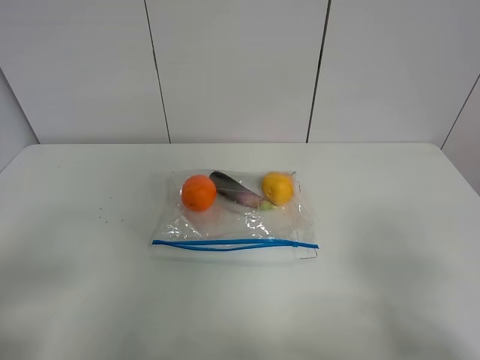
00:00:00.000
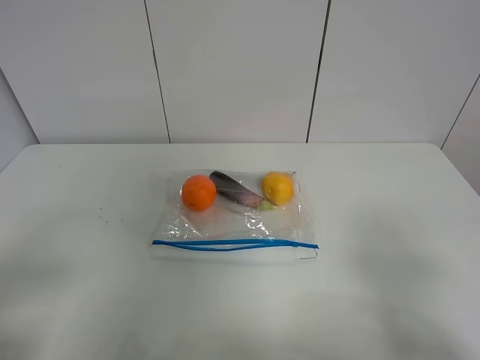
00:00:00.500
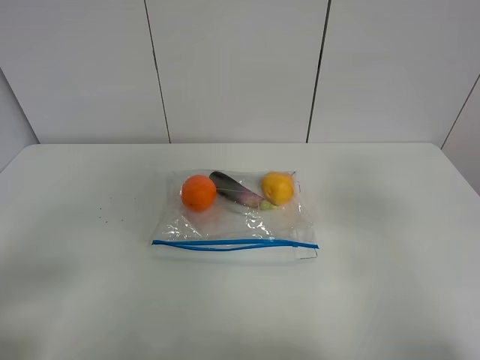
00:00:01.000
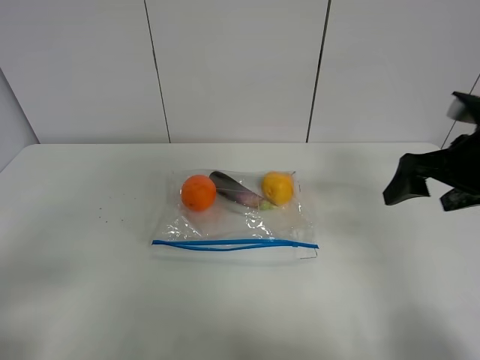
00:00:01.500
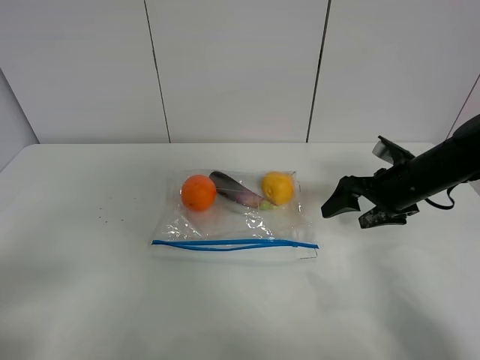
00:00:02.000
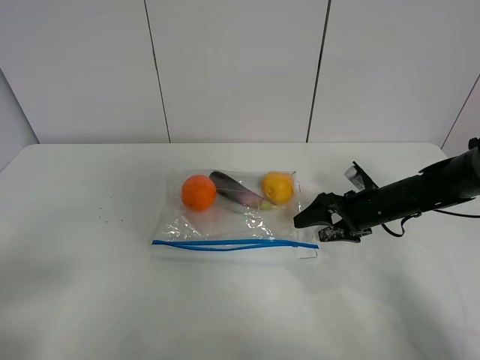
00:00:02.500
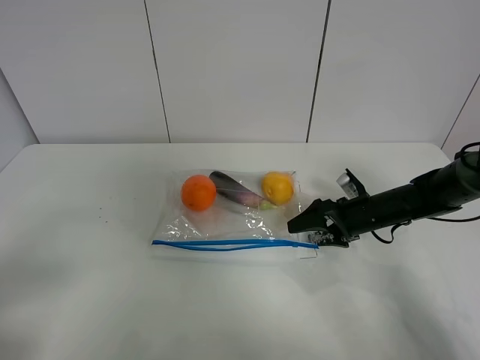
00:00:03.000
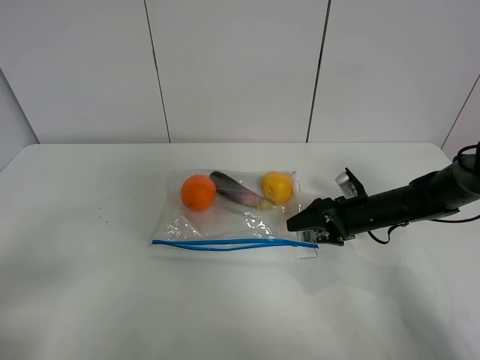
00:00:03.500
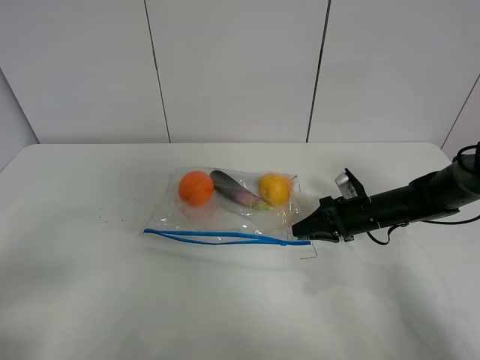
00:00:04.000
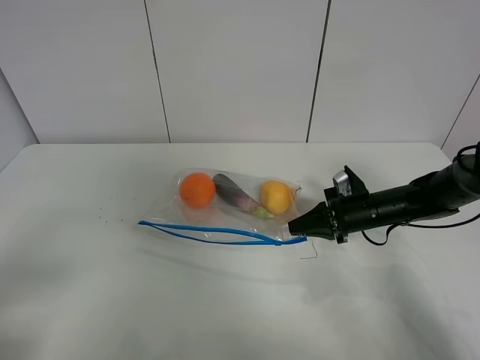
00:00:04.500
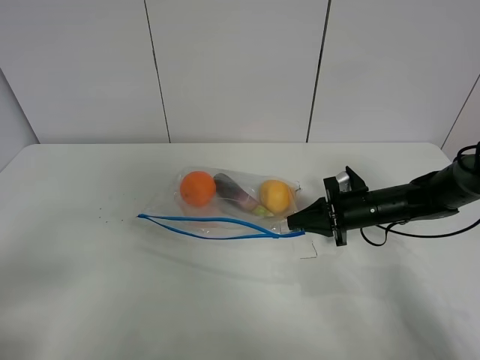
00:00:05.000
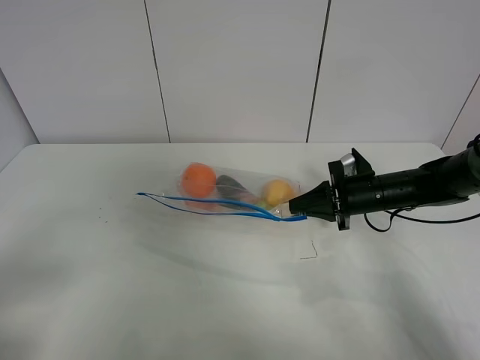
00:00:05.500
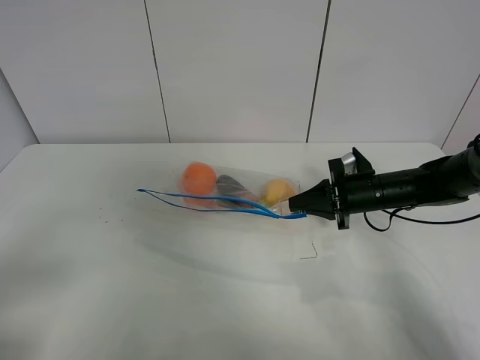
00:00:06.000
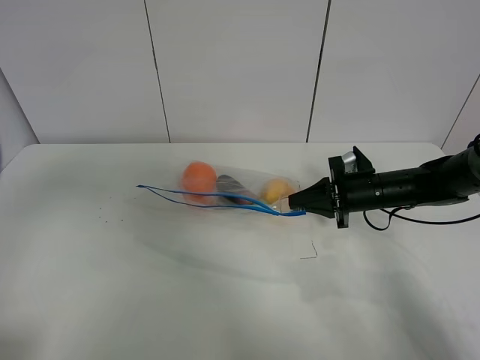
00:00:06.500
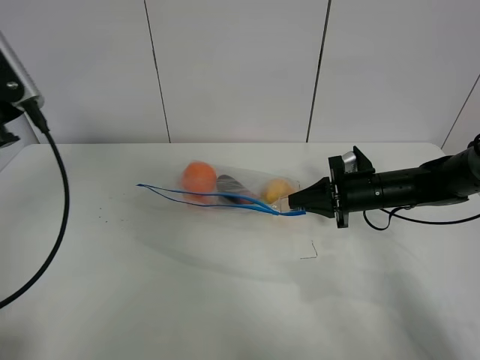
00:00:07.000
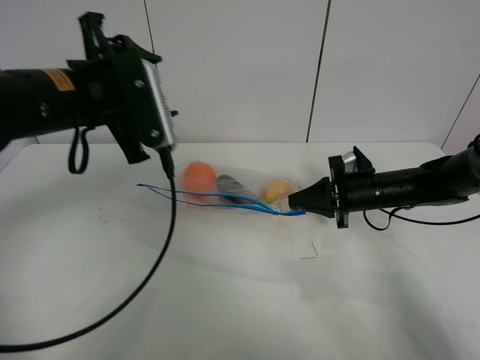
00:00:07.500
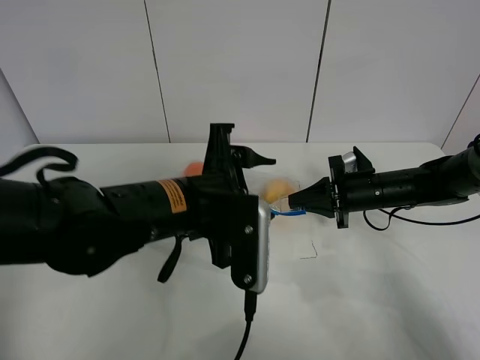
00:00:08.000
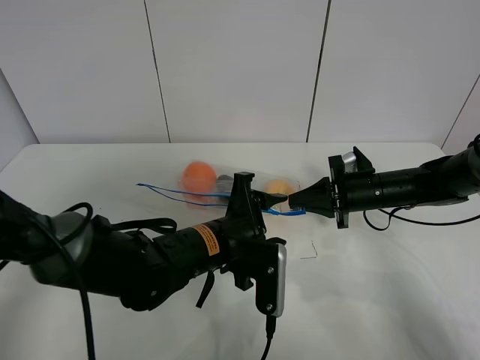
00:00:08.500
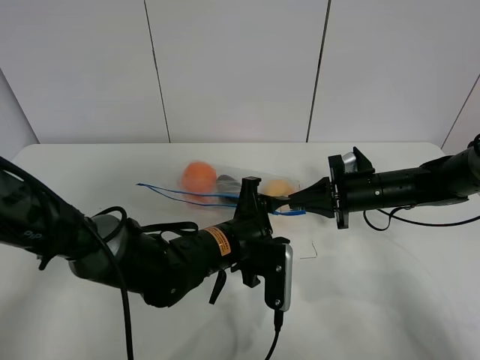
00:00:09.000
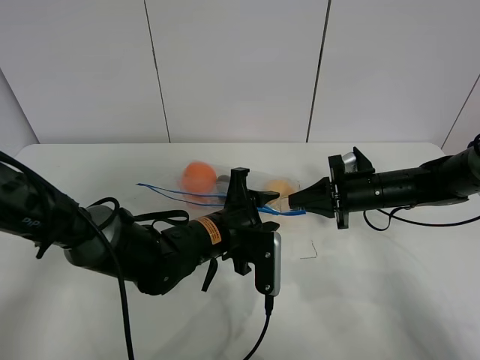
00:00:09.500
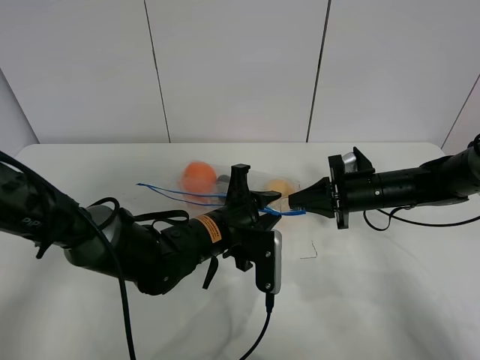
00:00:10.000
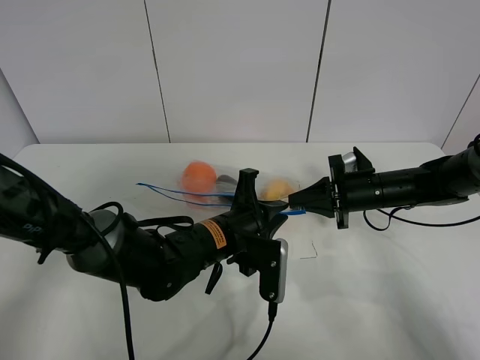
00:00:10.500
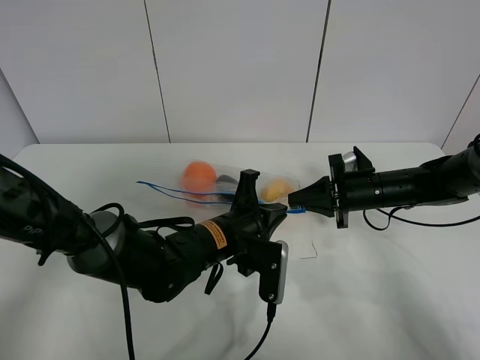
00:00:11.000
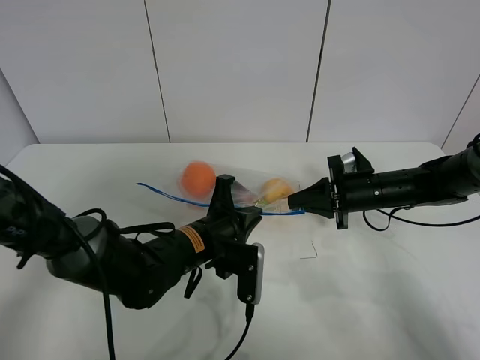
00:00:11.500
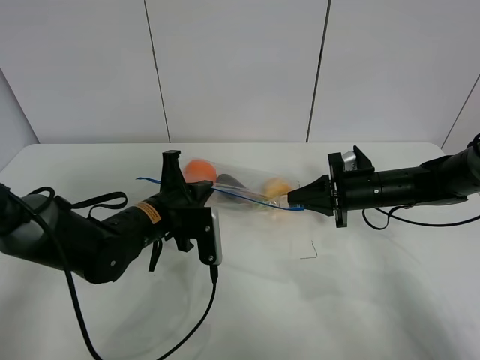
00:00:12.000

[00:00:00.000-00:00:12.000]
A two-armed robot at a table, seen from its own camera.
Step, 00:00:00.000 to 00:00:04.000: Grasp the fruit bag with right gripper.
Step, 00:00:04.500 to 00:00:06.000: Lift the fruit bag with your right gripper.
00:00:00.000 to 00:00:02.000: The right gripper travels forward by some 35 cm.
00:00:02.000 to 00:00:04.000: The right gripper moves downward, approximately 10 cm, and closes up.
00:00:04.000 to 00:00:06.000: The grippers make only small movements.
00:00:06.000 to 00:00:08.000: The left gripper is displaced to the right and forward by approximately 35 cm.
00:00:08.000 to 00:00:10.000: The left gripper goes some 10 cm downward, and closes.
00:00:10.000 to 00:00:12.000: The left gripper travels to the left by roughly 10 cm, and closes.

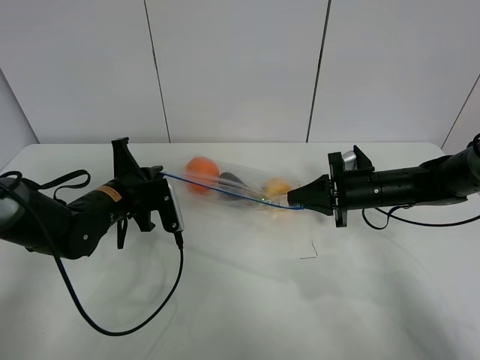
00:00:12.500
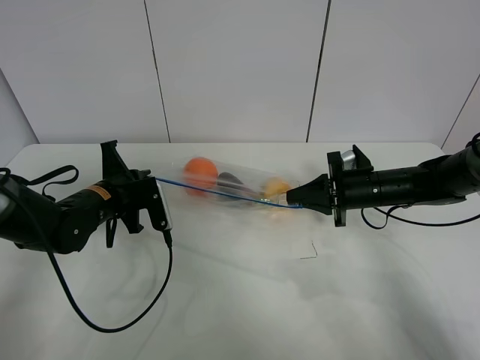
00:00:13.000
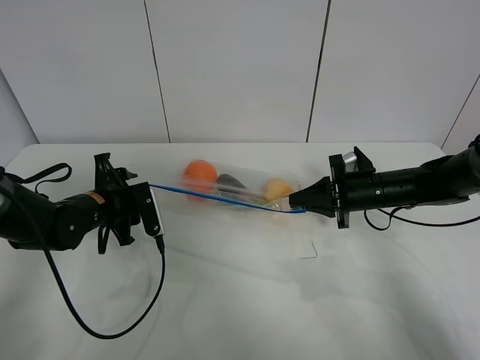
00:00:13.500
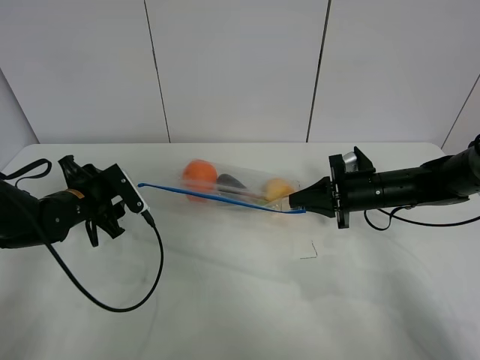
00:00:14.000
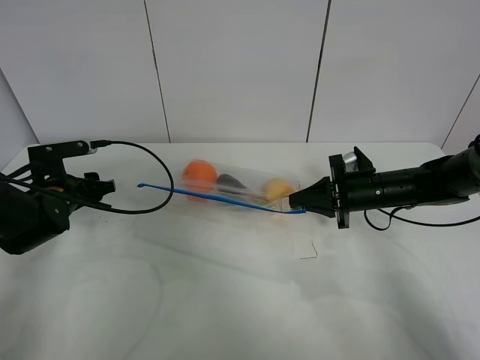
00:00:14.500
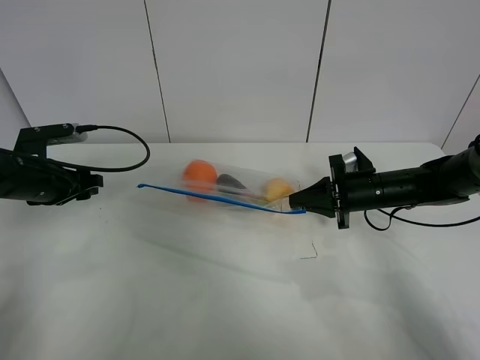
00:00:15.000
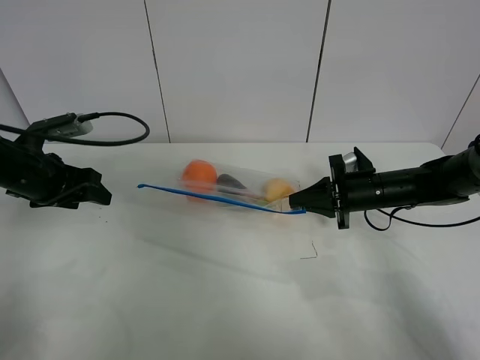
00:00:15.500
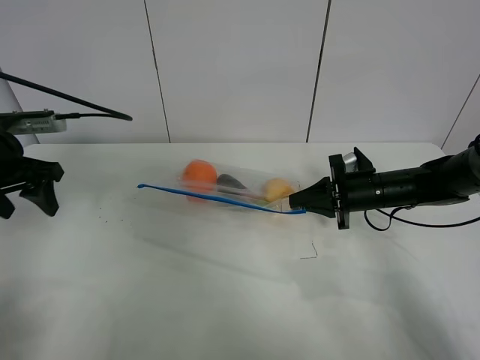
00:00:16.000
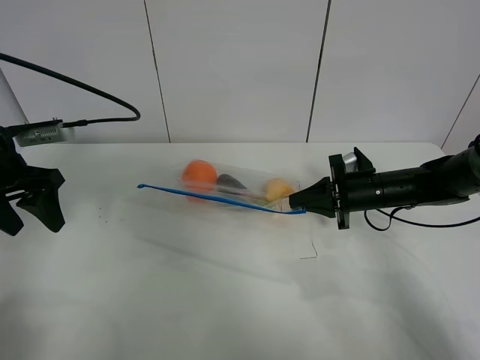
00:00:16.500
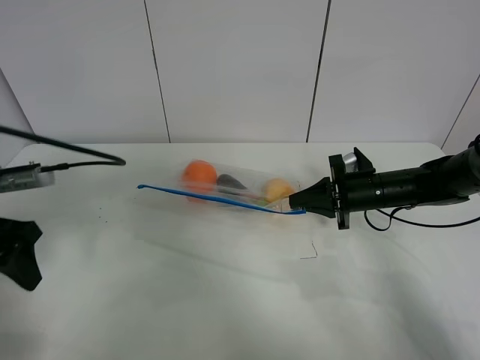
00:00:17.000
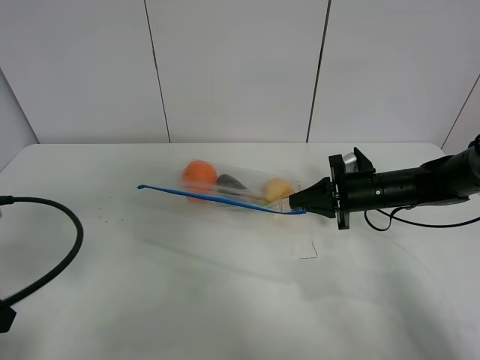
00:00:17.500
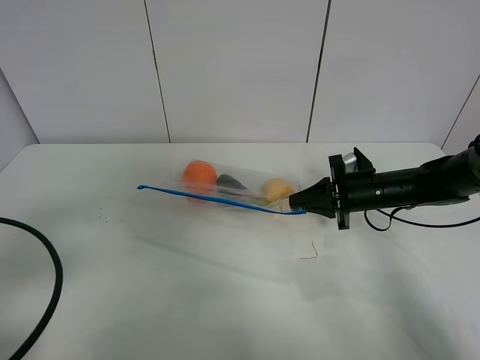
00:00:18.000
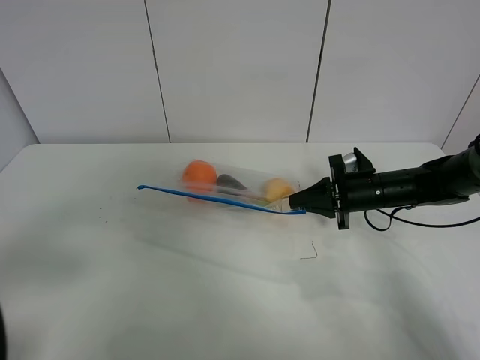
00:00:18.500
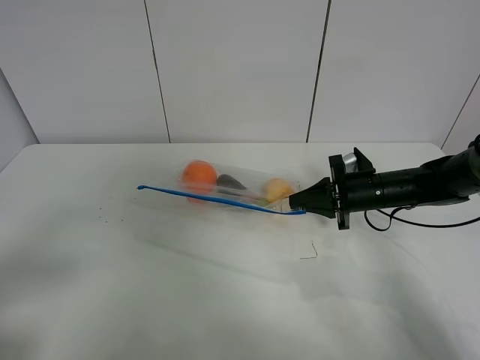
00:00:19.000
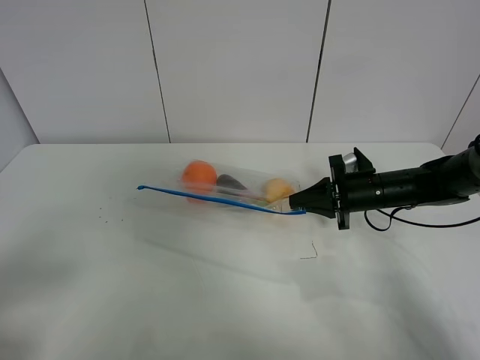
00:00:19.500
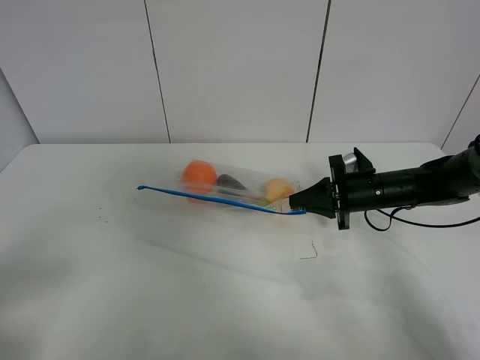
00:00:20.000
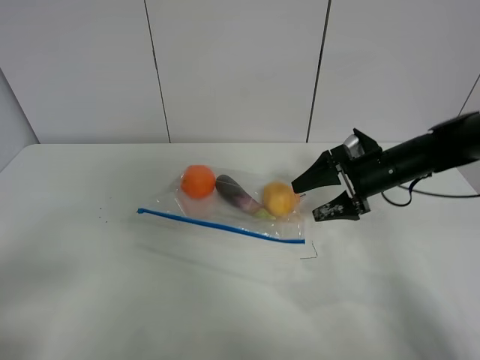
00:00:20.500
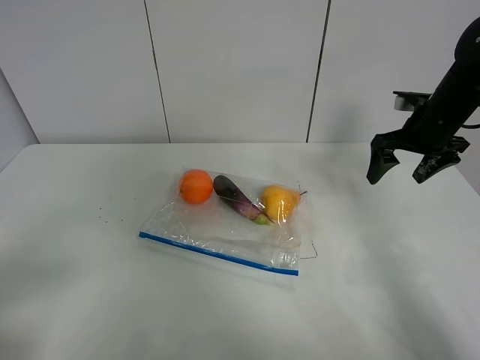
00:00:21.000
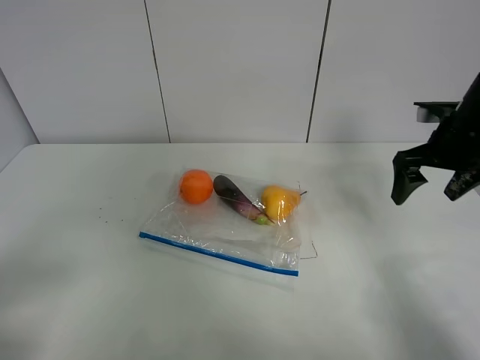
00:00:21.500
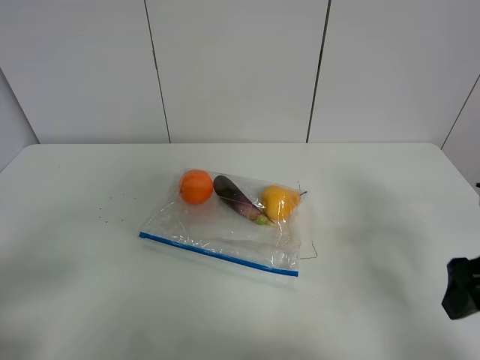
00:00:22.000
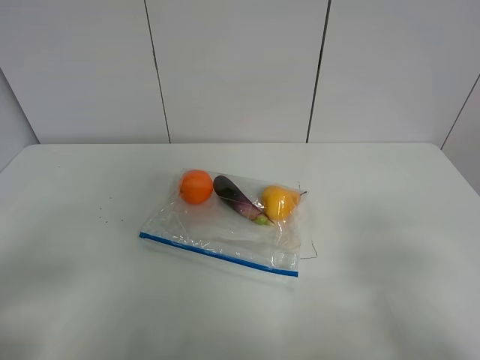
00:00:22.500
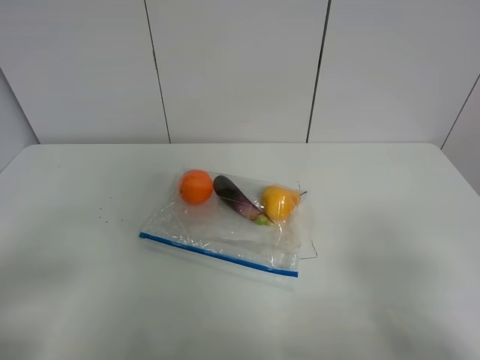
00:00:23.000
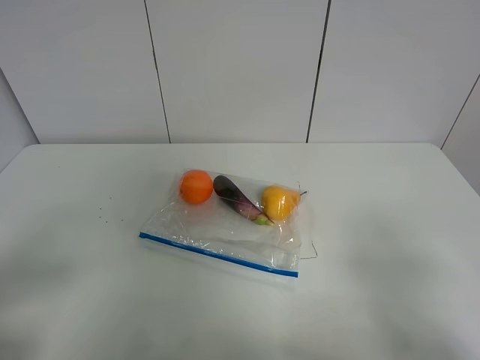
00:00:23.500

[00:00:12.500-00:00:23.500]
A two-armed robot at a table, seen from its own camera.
00:00:12.500 to 00:00:14.500: The left gripper travels to the left by about 10 cm, and opens.
00:00:14.500 to 00:00:16.000: The left gripper travels upward by some 10 cm.
00:00:16.000 to 00:00:18.000: The left gripper shifts approximately 20 cm backward.
00:00:18.000 to 00:00:20.000: The left gripper goes approximately 10 cm backward.
00:00:20.000 to 00:00:21.500: The right gripper moves upward and to the right, about 15 cm, and opens up.
00:00:21.500 to 00:00:23.500: The right gripper goes roughly 35 cm backward.

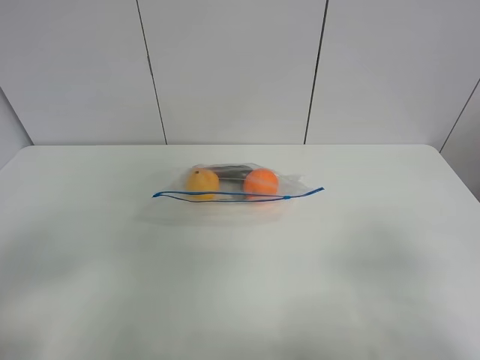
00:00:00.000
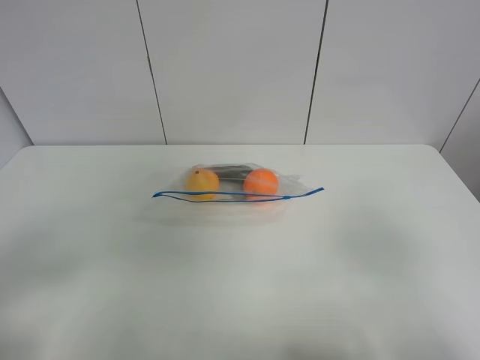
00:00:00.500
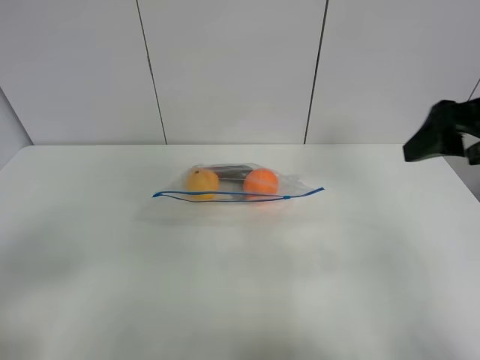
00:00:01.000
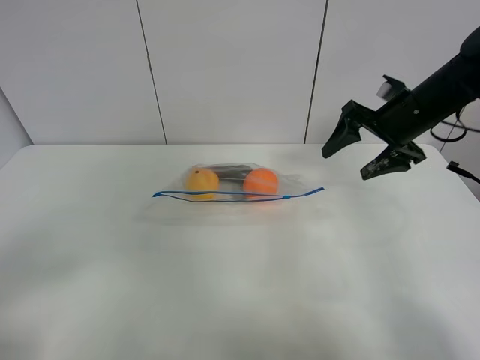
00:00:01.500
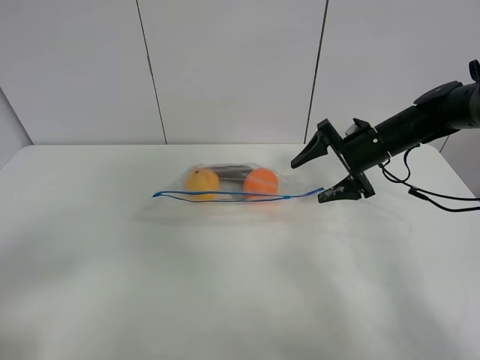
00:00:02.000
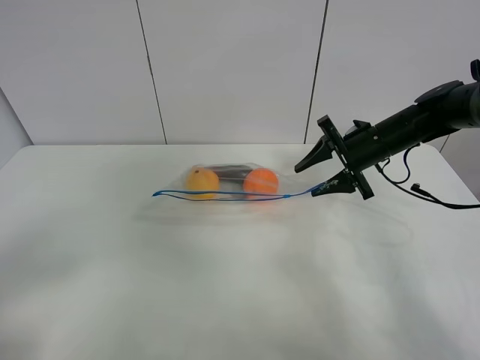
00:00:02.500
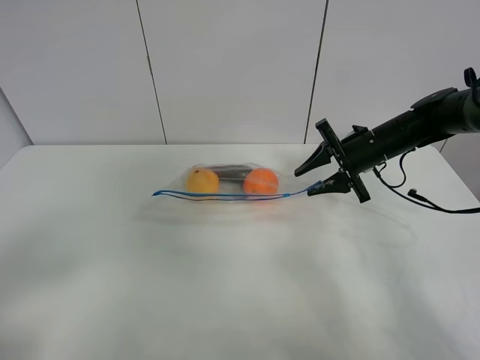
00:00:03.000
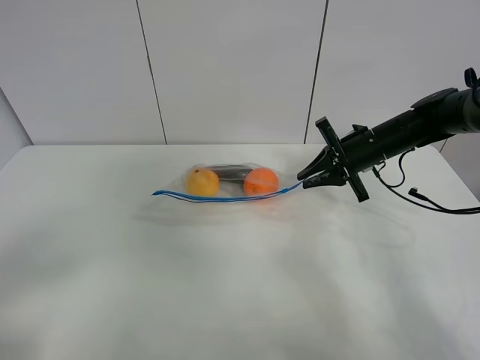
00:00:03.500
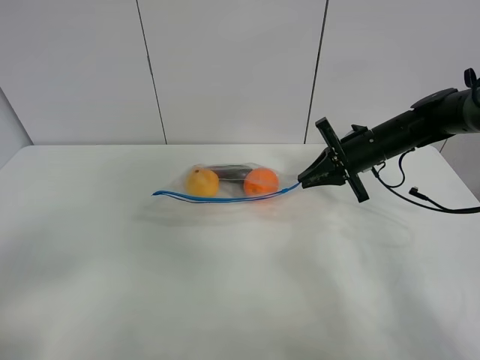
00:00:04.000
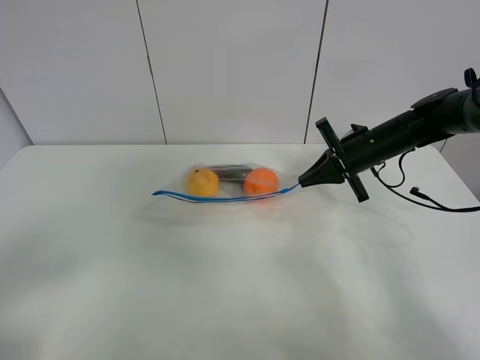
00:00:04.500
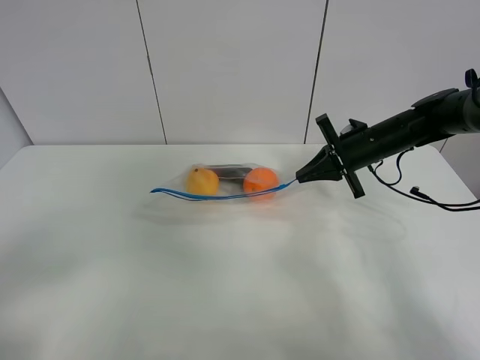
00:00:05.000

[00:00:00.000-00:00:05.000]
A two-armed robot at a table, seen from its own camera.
Step, 00:00:00.000 to 00:00:04.000: Grasp the fruit bag with right gripper.
00:00:00.000 to 00:00:02.500: The right gripper goes roughly 40 cm forward.
00:00:02.500 to 00:00:05.000: The right gripper closes.
